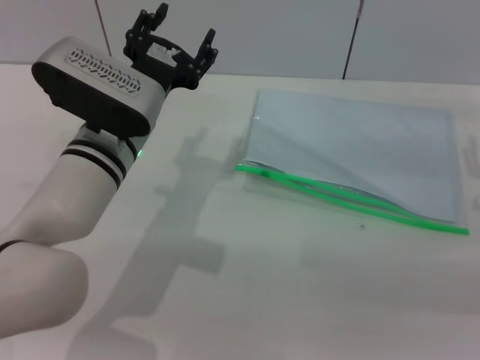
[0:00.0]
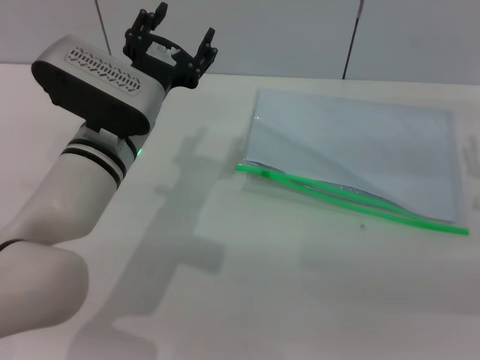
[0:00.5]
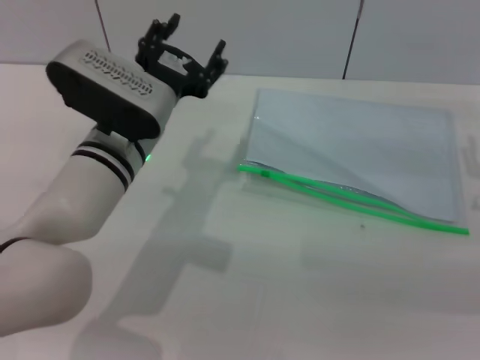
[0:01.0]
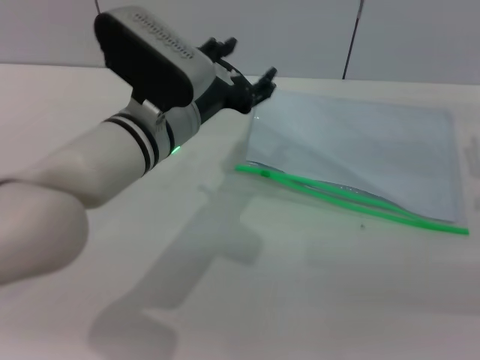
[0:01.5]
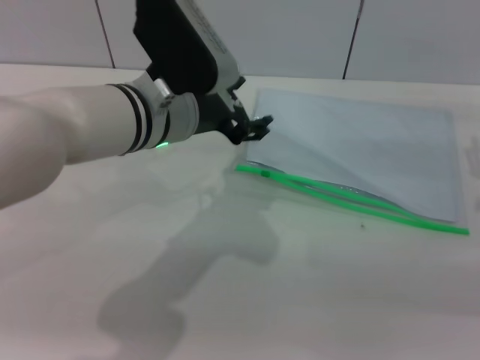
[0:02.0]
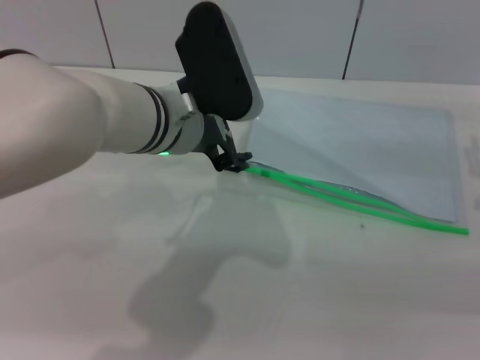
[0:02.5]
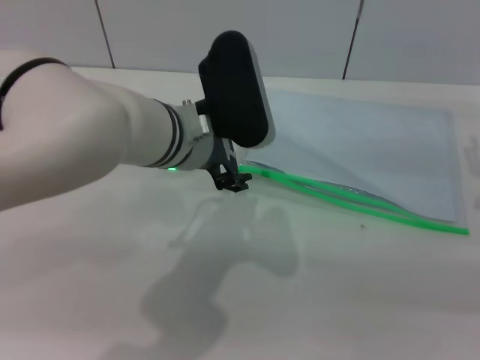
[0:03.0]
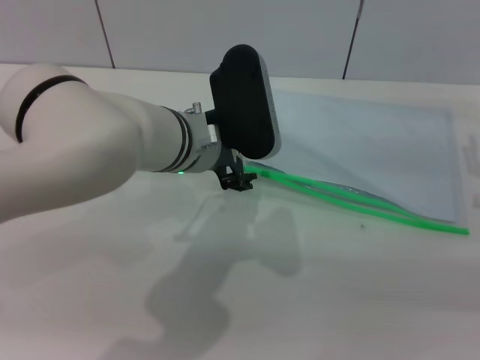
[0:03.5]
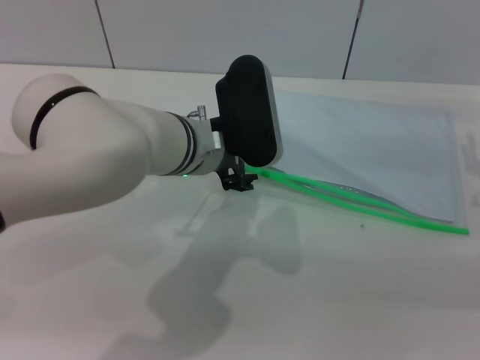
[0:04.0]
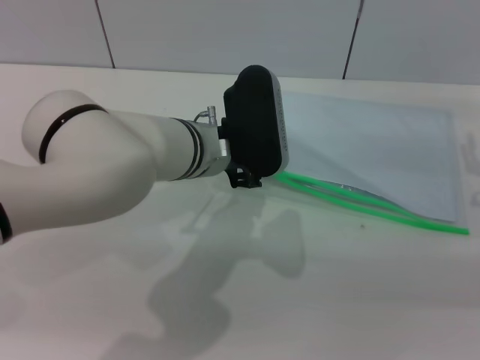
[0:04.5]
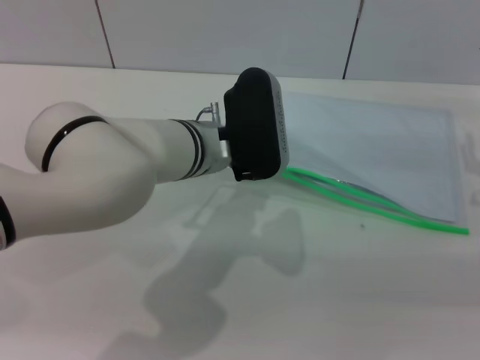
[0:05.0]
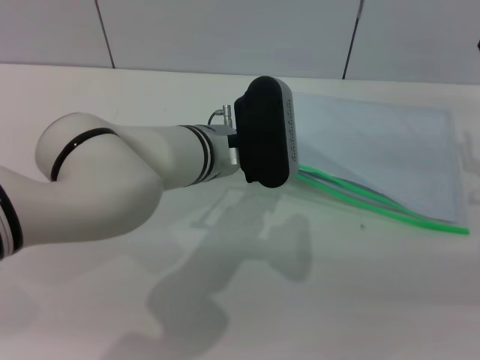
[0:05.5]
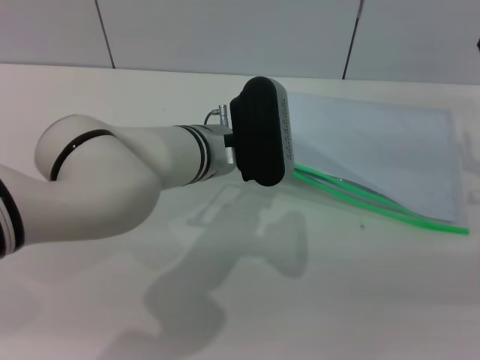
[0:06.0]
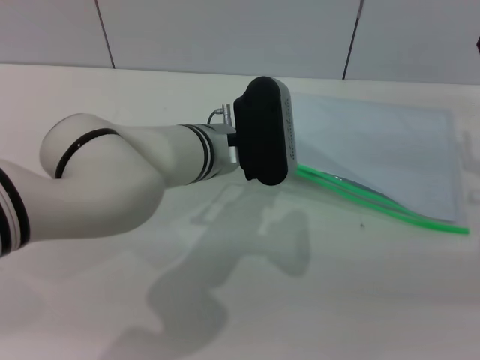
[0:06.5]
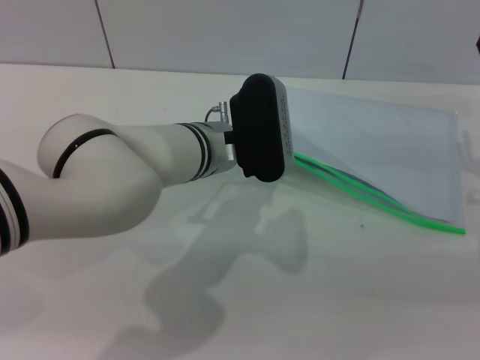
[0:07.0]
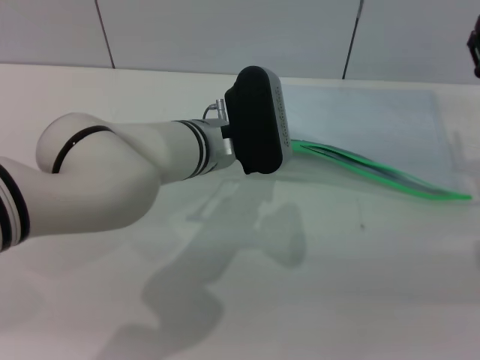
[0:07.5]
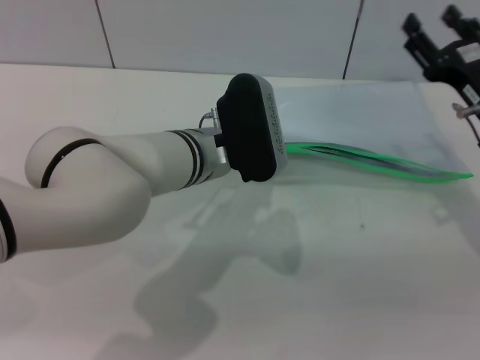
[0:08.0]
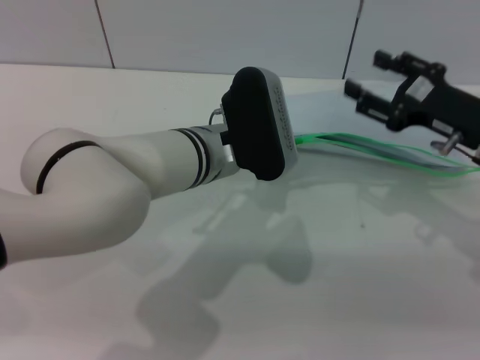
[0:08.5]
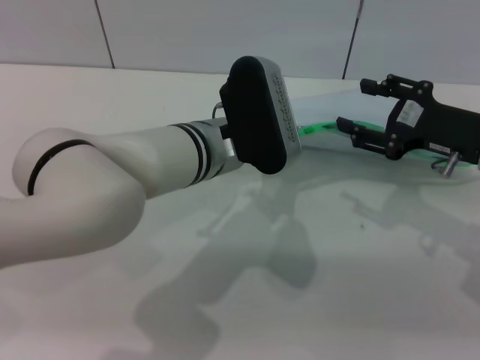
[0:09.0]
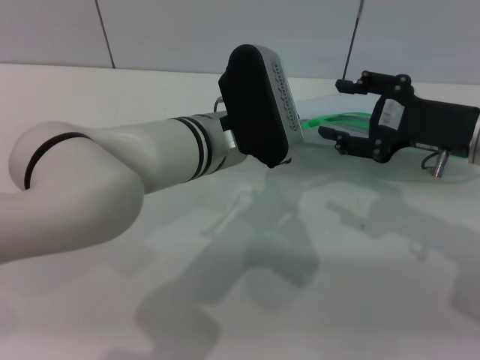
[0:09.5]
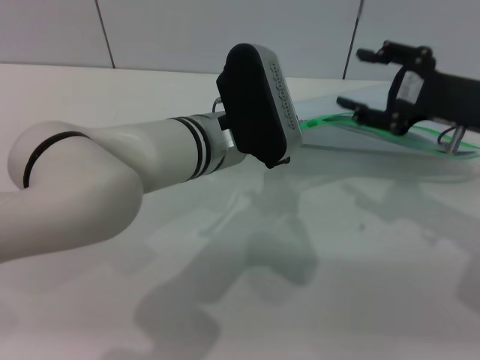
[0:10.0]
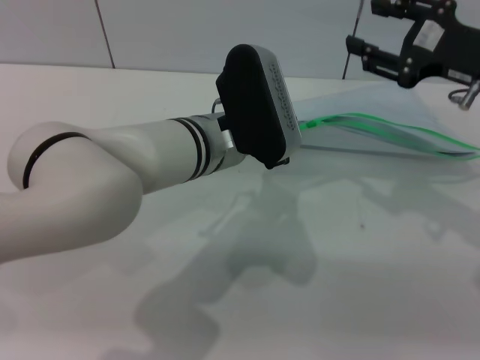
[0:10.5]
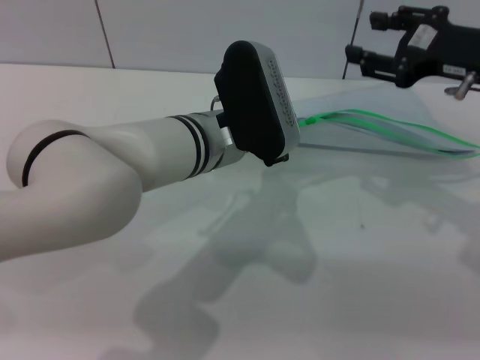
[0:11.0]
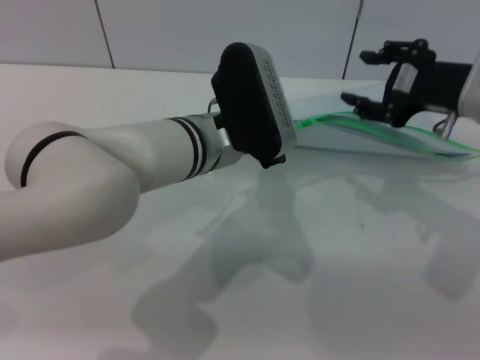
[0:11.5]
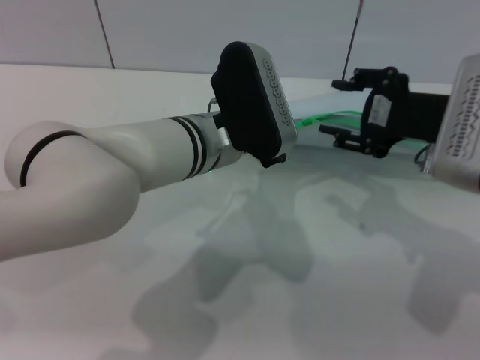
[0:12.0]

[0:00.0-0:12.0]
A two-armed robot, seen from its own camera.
Step, 0.0 to 9.0 s: Pick up the transparent plastic bag with the left gripper.
0.0 to 2.0 s: The left gripper shifts about 5 cm upward.
4.0 to 6.0 s: The grippers make only small movements.
6.0 to 8.0 s: The left gripper closes its fingers.
8.0 to 10.0 s: The right gripper is displaced upward by some 5 cm.
10.0 to 12.0 s: The right gripper ends up approximately 5 cm from where it was.

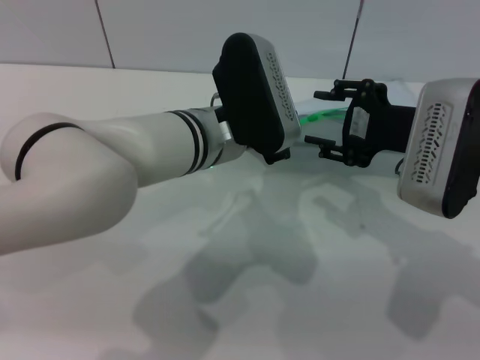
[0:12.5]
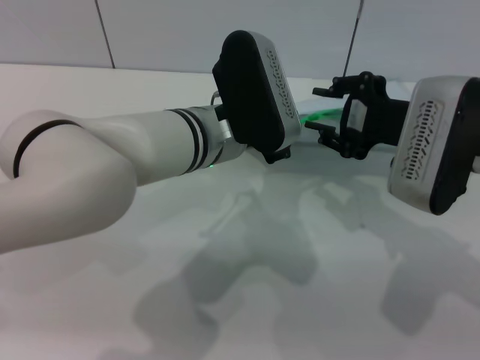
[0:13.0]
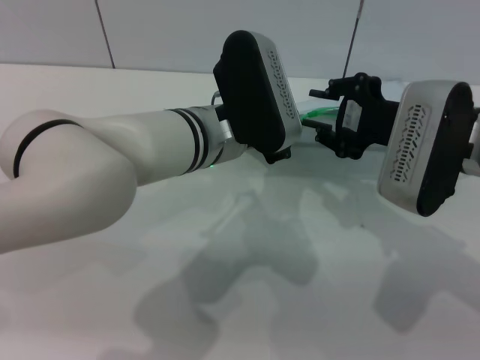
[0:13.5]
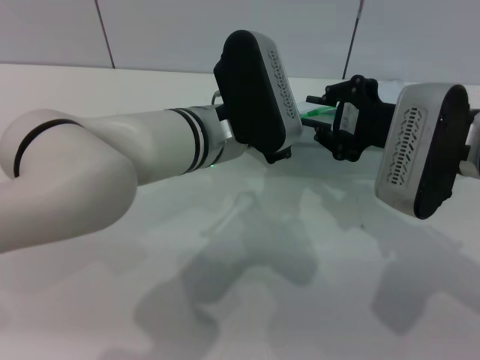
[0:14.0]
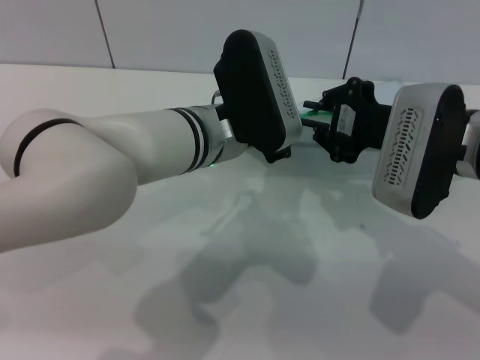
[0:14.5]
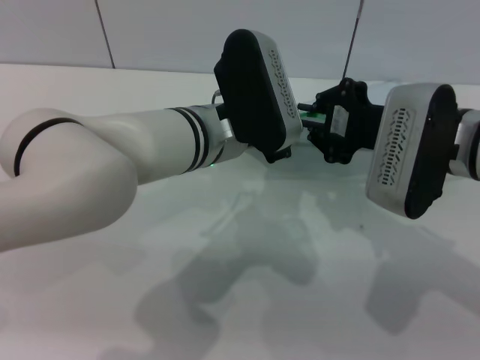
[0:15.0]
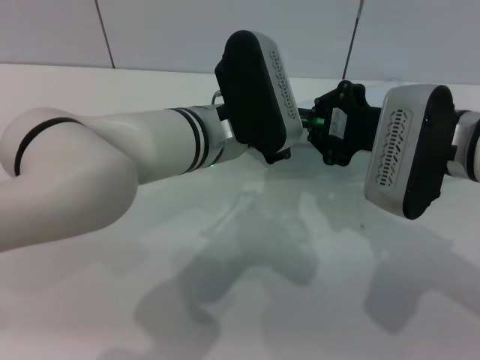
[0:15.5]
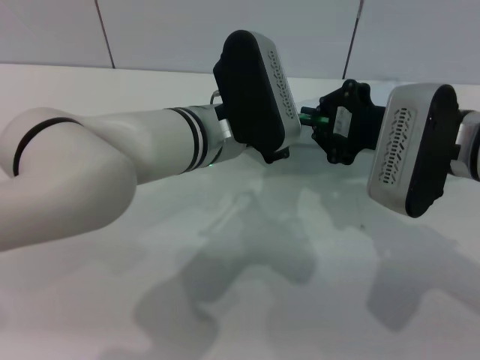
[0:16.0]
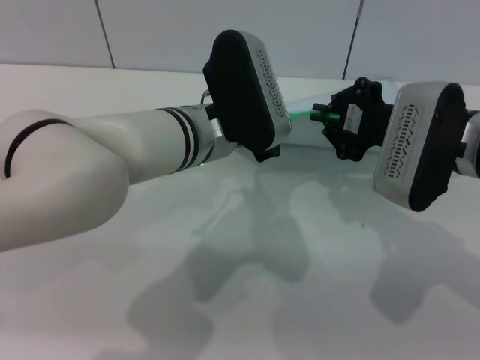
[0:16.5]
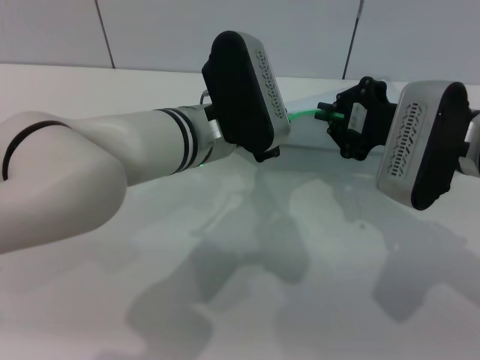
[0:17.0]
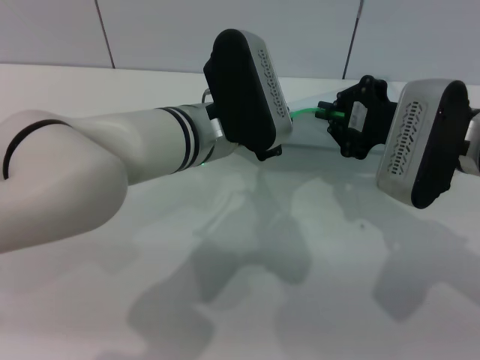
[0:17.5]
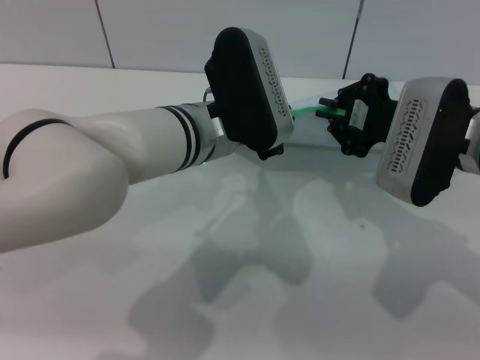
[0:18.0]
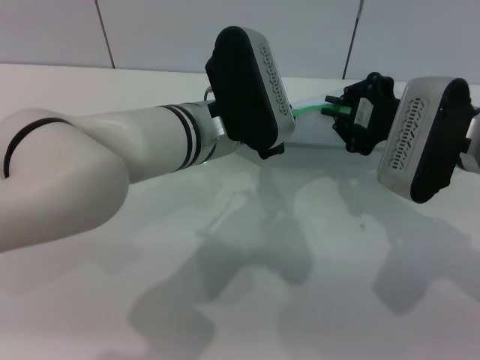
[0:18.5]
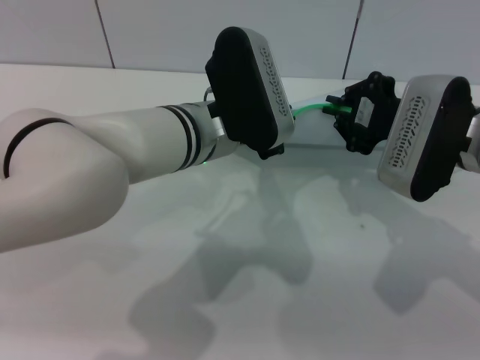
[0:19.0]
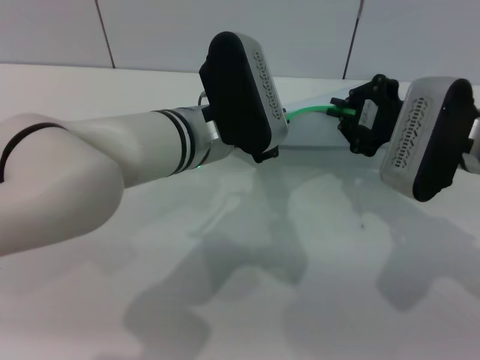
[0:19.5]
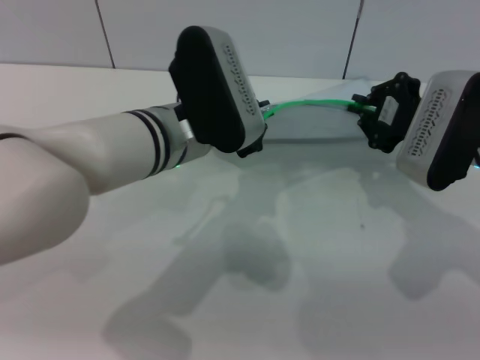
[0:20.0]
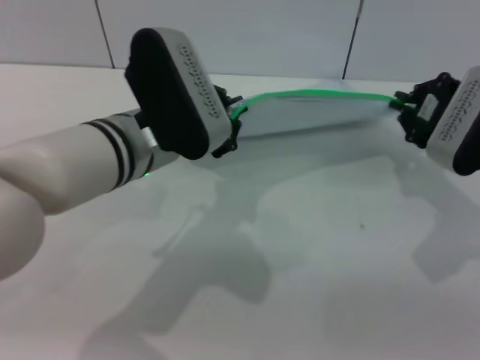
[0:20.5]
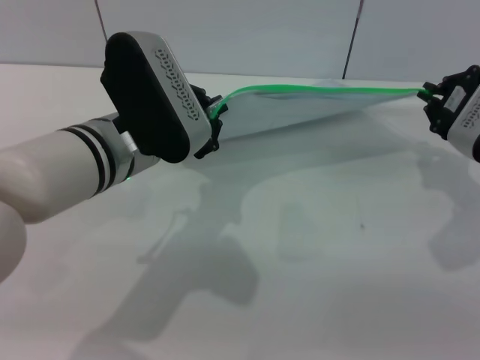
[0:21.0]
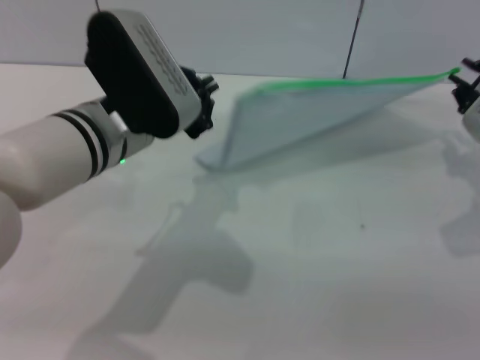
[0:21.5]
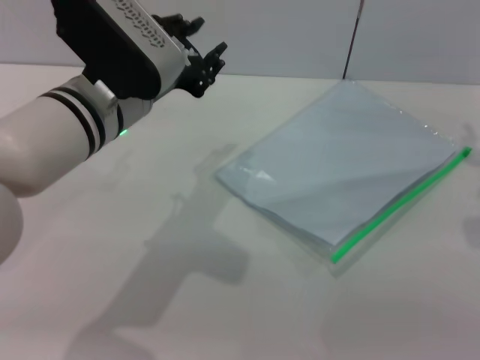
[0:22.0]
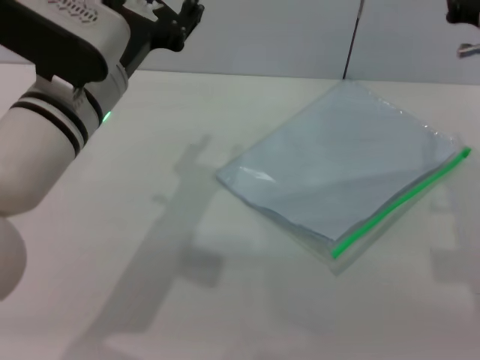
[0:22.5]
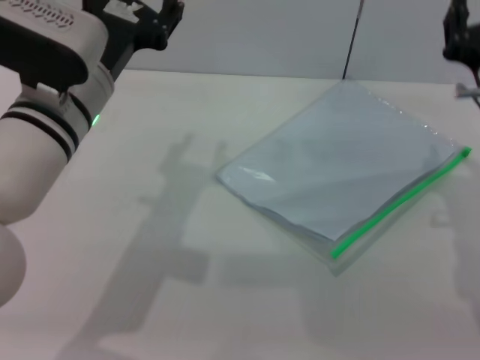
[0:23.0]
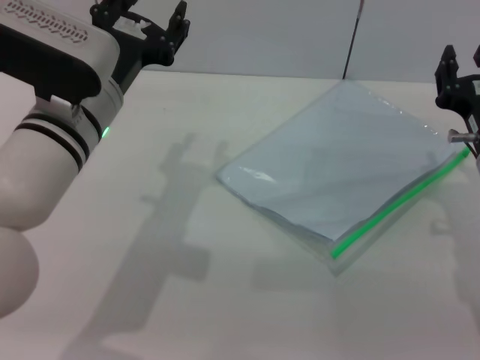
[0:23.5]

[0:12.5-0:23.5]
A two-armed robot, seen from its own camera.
Step, 12.5 to 21.0 s: Pulling up the zipper on the transparent plastic bag with the right gripper to close it.
Step, 21.5 to 22.5 s: Place the transparent plastic bag.
12.5 to 14.5 s: The right gripper closes its fingers.
14.5 to 16.0 s: The two grippers keep their place.
16.0 to 20.0 s: There are only small adjustments of the grippers.
20.0 to 21.5 s: The right gripper shifts approximately 5 cm to the right, while the left gripper ends up about 5 cm from where it was.
21.5 to 23.5 s: The left gripper opens up; the right gripper travels backward and to the left by roughly 10 cm, goes upward and returns, some 5 cm each way, and opens.

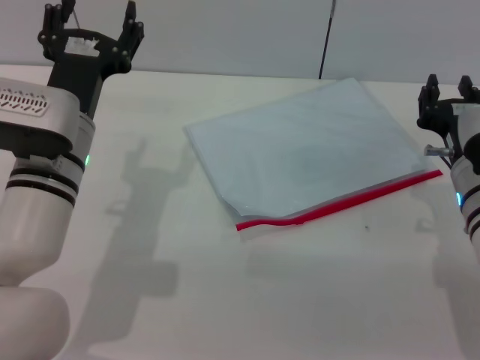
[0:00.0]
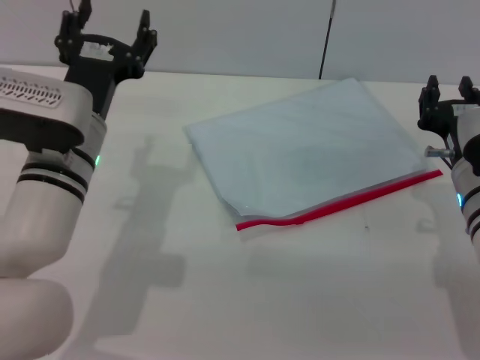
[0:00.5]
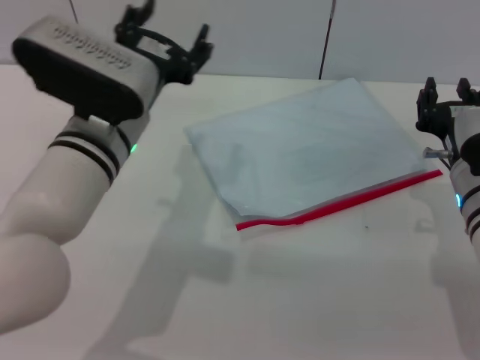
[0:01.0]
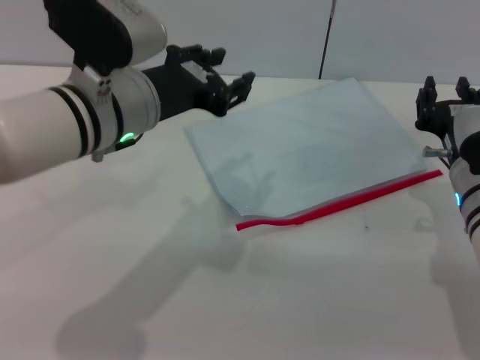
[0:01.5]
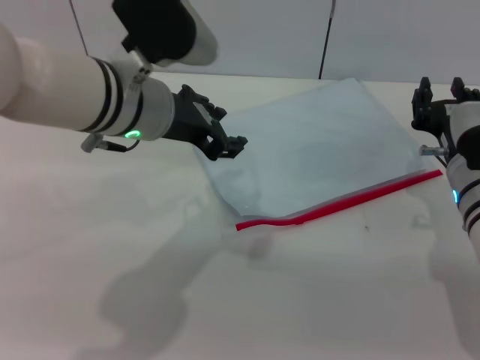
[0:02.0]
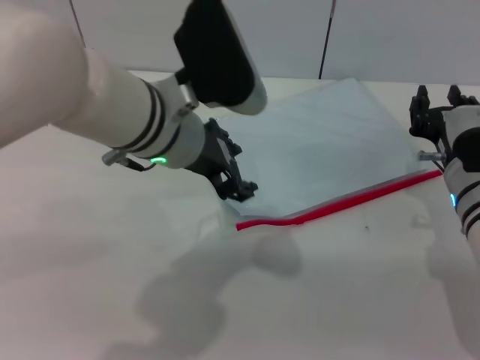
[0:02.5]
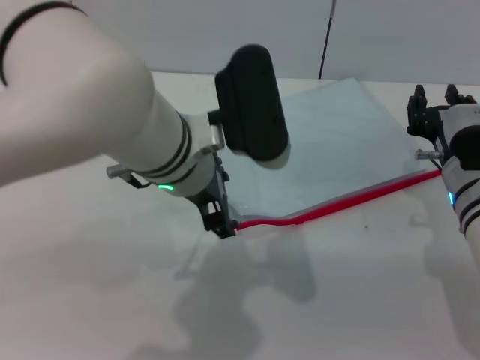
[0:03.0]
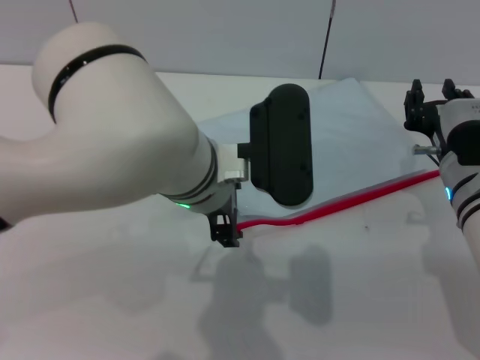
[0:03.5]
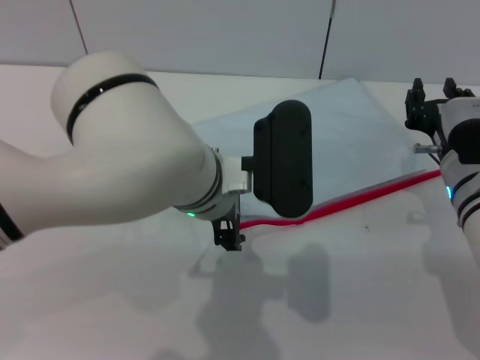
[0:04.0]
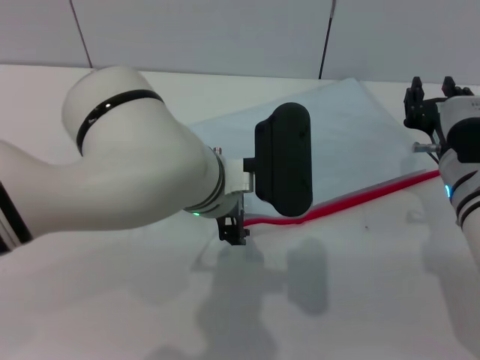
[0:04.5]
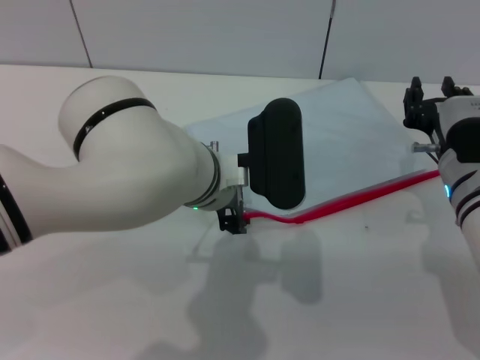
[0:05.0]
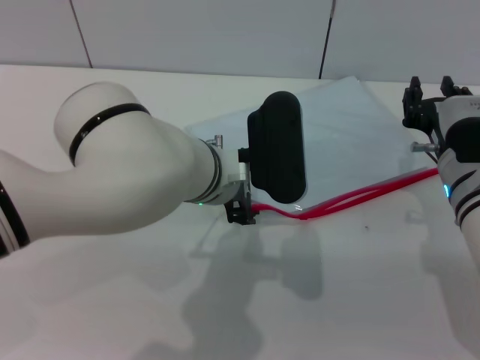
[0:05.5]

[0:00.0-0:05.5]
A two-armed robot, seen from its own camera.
0.0 to 2.0 s: The left gripper shifts about 10 cm upward and to the right.
2.0 to 3.5 s: The left gripper shifts approximately 5 cm to the right.
3.5 to 5.5 s: The grippers move only a little.
